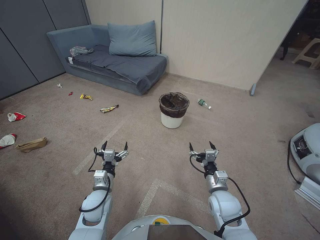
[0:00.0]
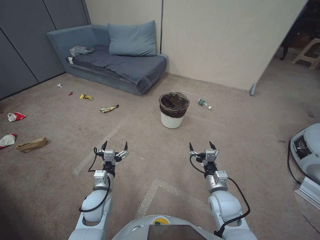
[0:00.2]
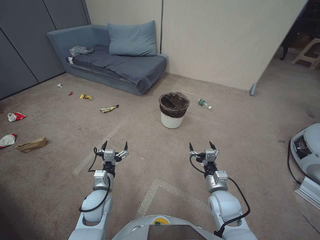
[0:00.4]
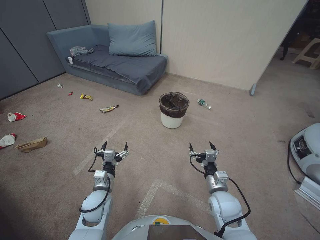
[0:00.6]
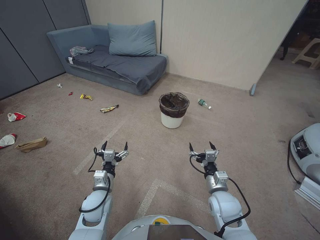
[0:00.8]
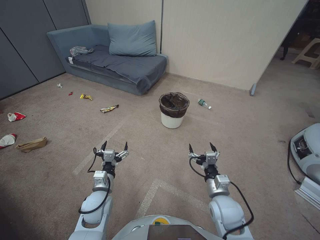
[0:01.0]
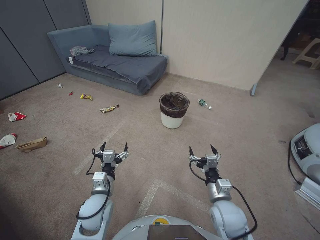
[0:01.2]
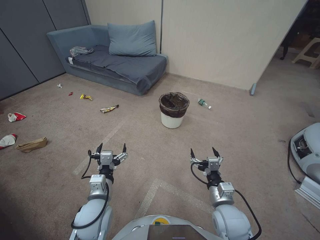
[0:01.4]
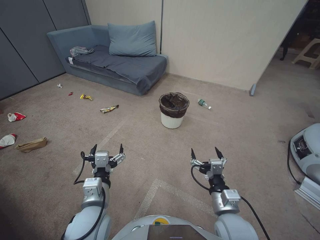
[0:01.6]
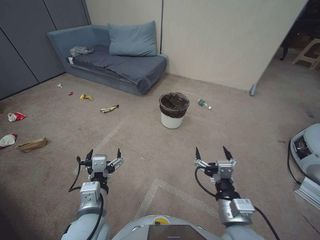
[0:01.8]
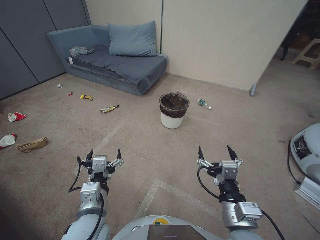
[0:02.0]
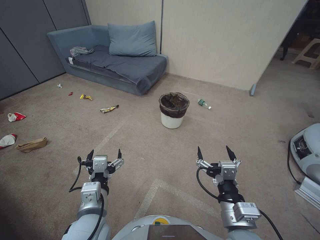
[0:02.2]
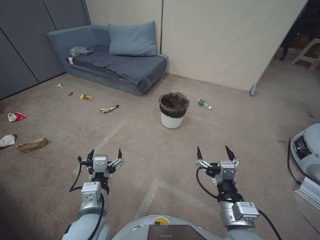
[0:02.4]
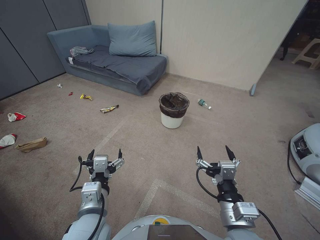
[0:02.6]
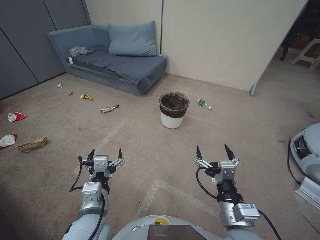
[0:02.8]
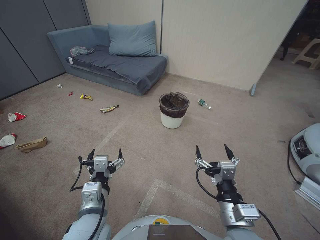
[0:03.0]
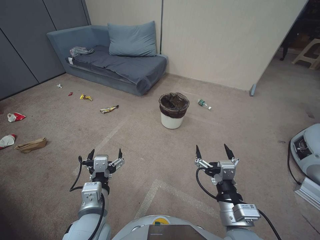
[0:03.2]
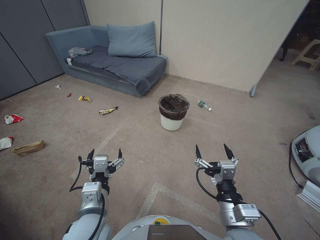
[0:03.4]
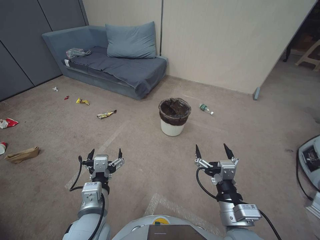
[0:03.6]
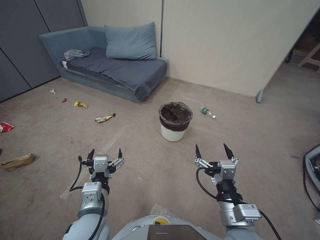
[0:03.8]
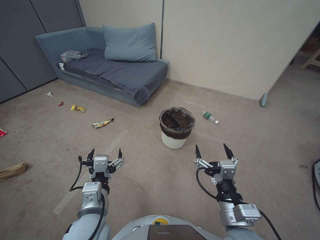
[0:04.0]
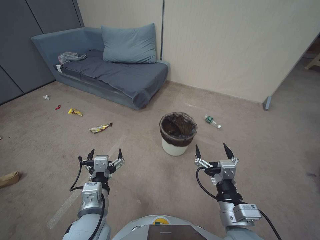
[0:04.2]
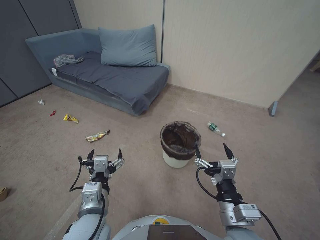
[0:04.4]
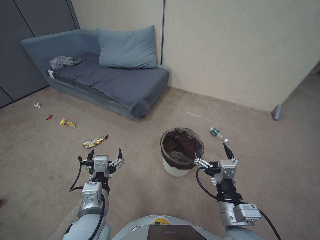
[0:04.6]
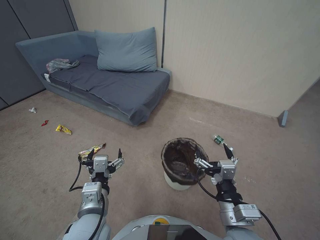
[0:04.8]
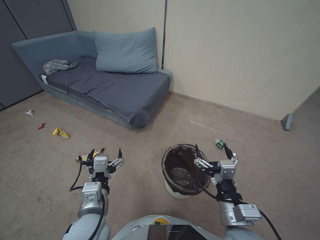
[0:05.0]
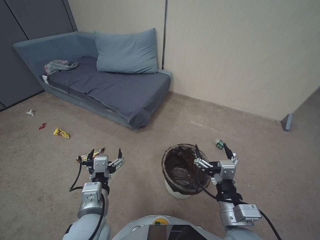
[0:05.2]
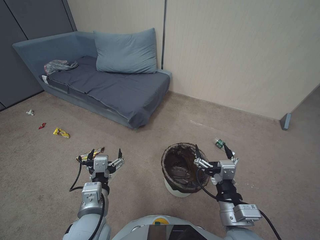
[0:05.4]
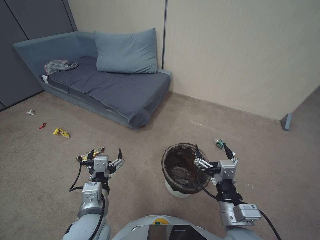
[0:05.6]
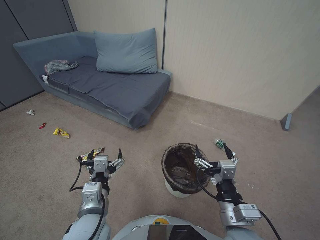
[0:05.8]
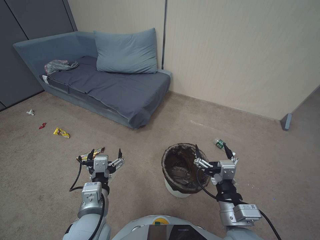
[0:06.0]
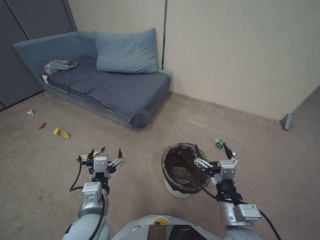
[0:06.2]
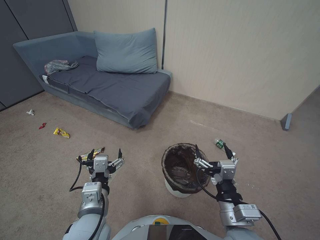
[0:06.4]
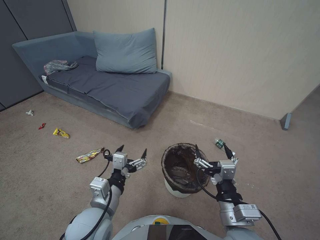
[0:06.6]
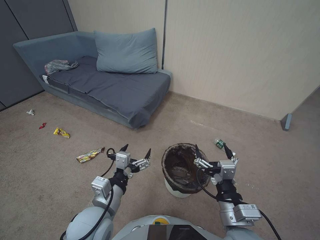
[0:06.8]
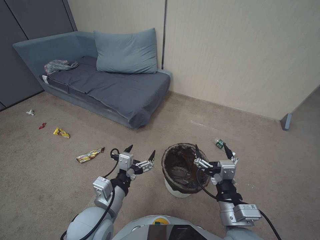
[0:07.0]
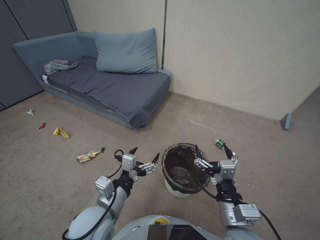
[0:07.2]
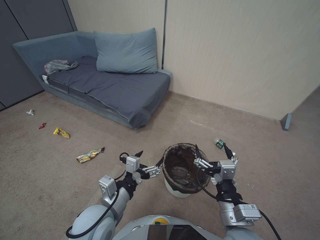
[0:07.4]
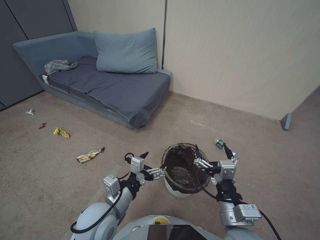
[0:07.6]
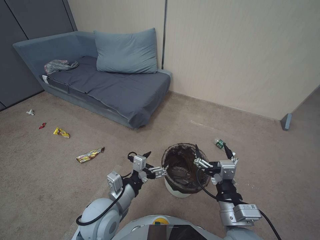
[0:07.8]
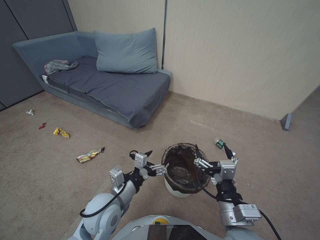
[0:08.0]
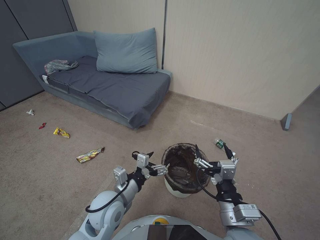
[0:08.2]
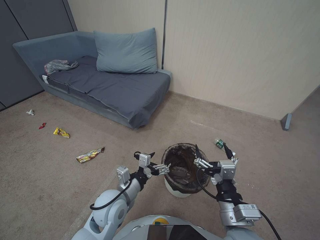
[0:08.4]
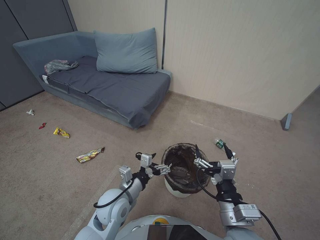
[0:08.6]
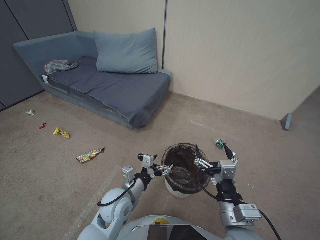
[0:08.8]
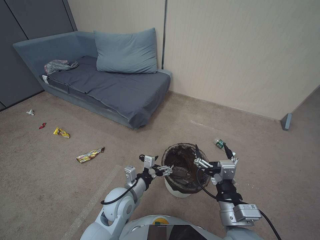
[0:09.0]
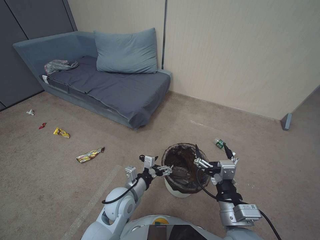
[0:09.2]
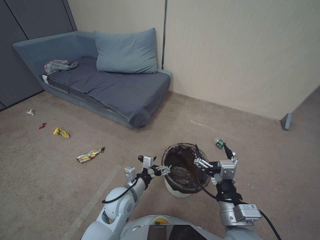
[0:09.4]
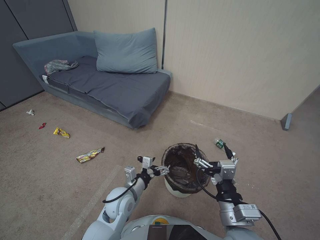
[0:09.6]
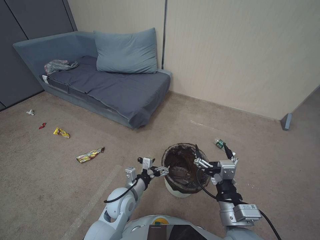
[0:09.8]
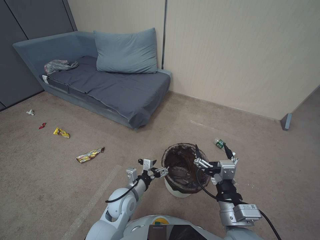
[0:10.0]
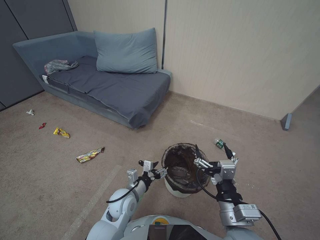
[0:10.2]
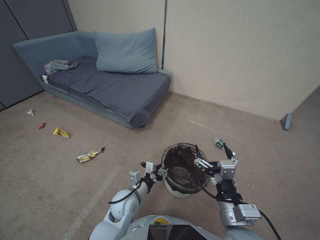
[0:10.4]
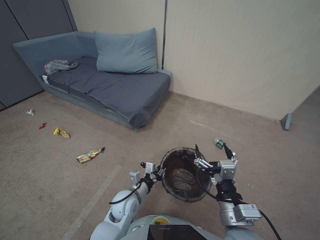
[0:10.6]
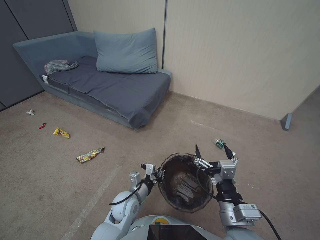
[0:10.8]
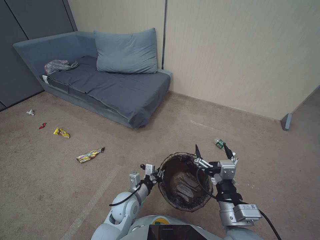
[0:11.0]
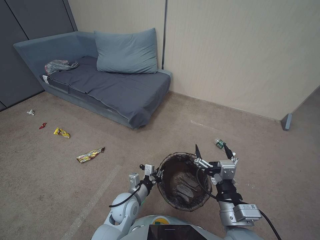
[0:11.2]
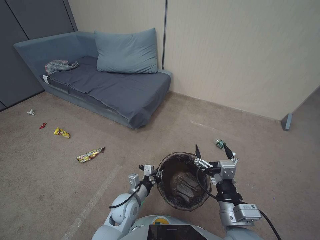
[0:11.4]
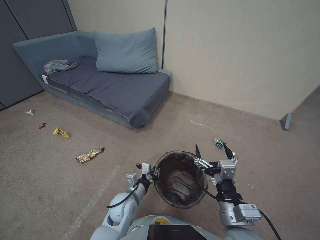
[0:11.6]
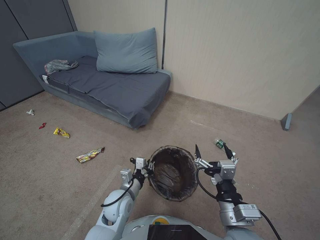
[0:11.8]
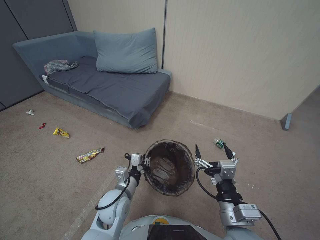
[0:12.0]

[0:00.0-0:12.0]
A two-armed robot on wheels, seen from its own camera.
Task of the whole recording: Pick up the trash bin, then pick up the garbage from the floor and place it into the trash bin.
0:01.6 to 0:03.0: The right gripper moves upward and backward, roughly 10 cm. Meanwhile the left gripper moves approximately 5 cm.
0:04.4 to 0:06.0: Neither gripper changes place.
0:07.6 to 0:09.0: The left gripper shifts about 10 cm downward and forward.
0:09.0 to 0:10.4: The left gripper shifts some 5 cm downward, and closes up.
0:10.4 to 0:12.0: The left gripper closes.

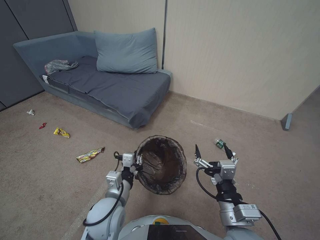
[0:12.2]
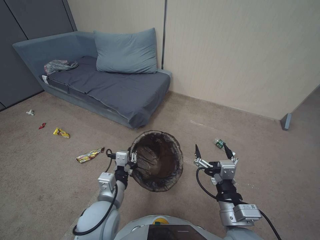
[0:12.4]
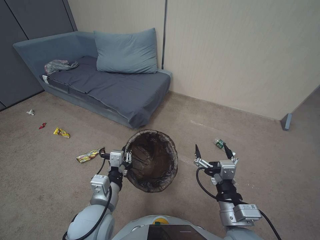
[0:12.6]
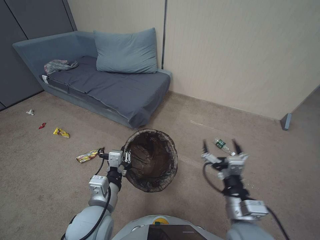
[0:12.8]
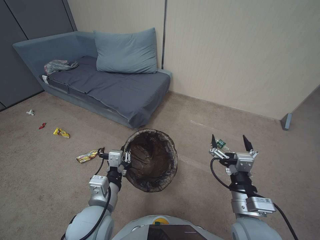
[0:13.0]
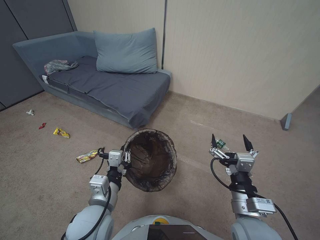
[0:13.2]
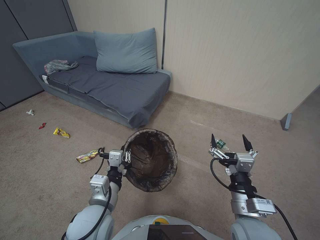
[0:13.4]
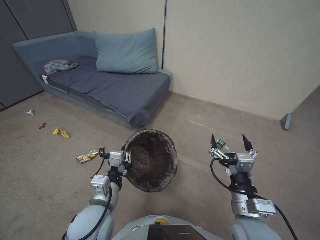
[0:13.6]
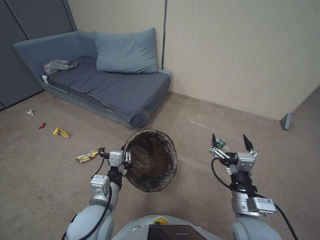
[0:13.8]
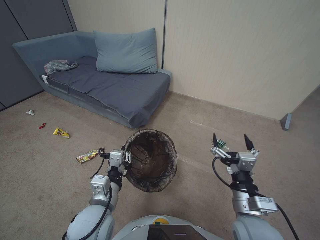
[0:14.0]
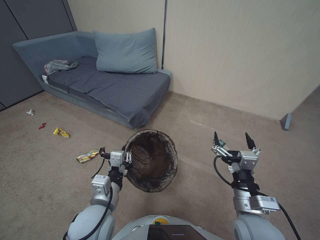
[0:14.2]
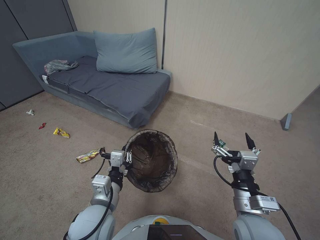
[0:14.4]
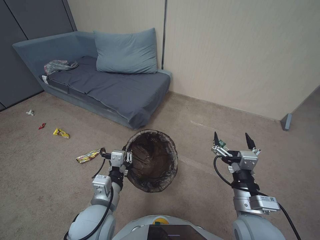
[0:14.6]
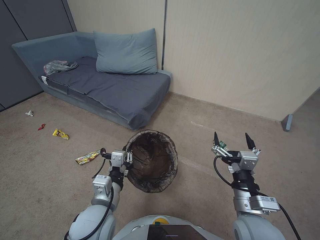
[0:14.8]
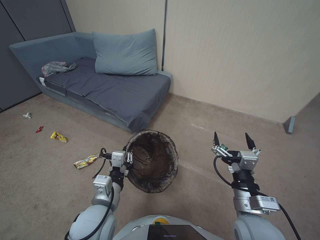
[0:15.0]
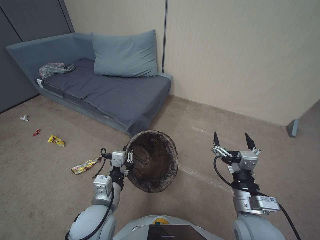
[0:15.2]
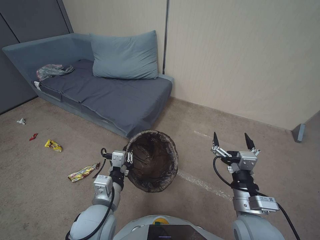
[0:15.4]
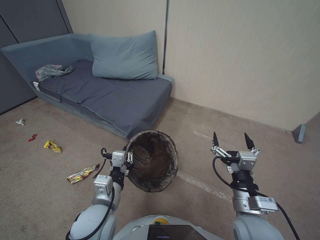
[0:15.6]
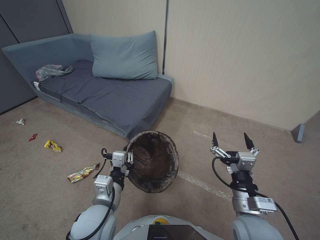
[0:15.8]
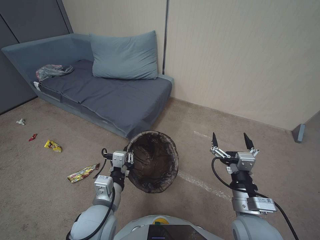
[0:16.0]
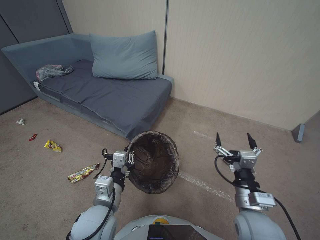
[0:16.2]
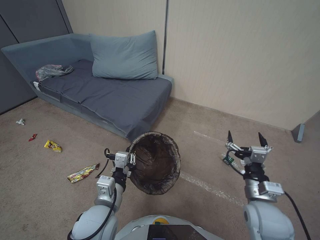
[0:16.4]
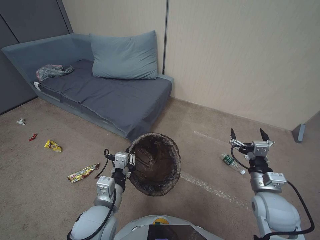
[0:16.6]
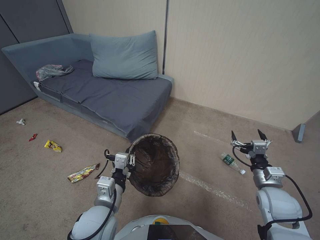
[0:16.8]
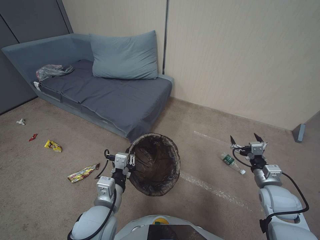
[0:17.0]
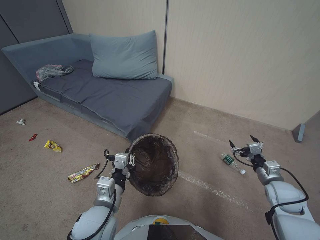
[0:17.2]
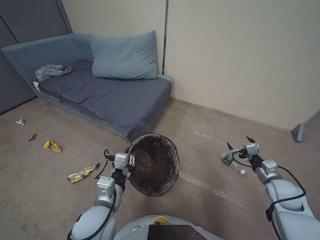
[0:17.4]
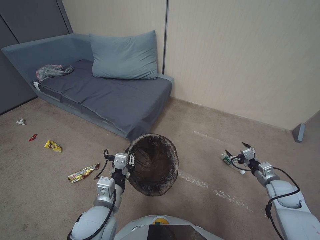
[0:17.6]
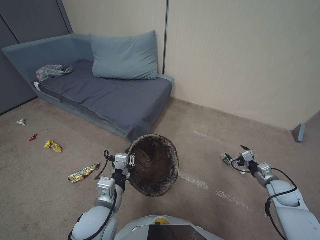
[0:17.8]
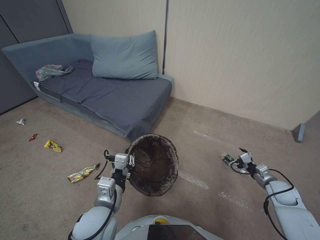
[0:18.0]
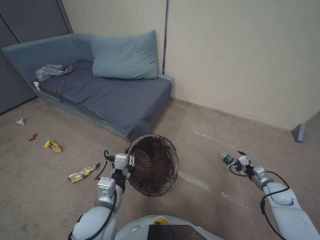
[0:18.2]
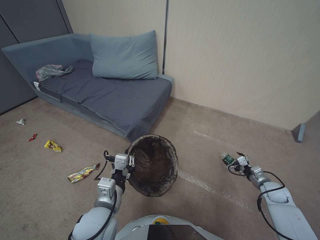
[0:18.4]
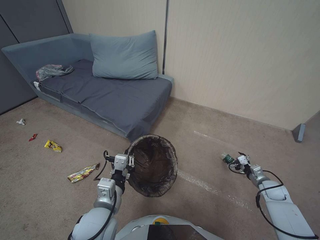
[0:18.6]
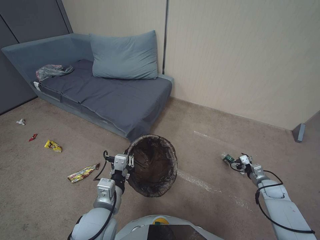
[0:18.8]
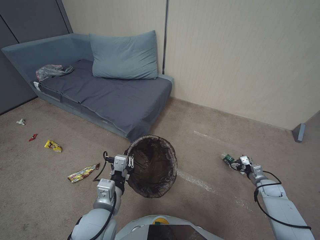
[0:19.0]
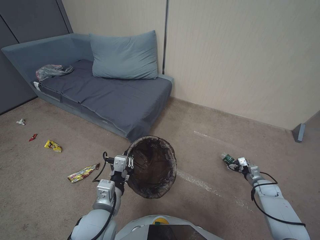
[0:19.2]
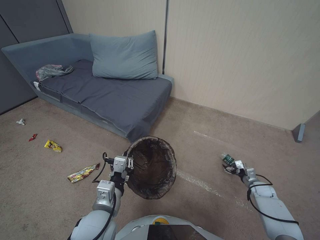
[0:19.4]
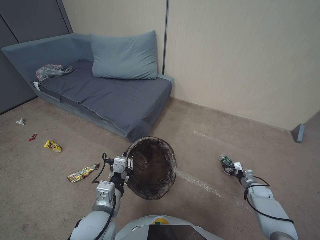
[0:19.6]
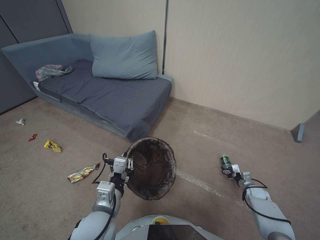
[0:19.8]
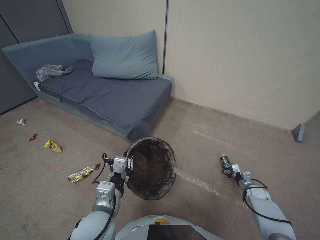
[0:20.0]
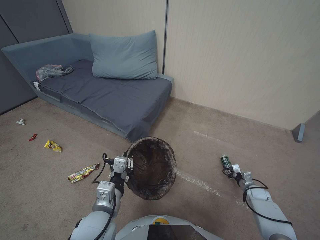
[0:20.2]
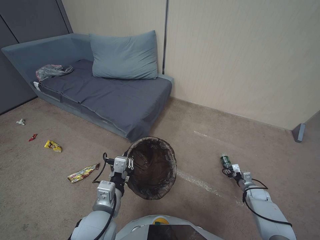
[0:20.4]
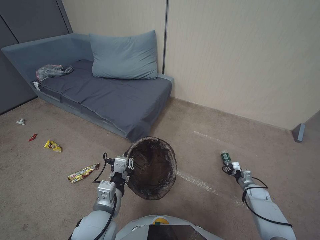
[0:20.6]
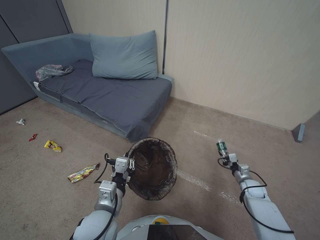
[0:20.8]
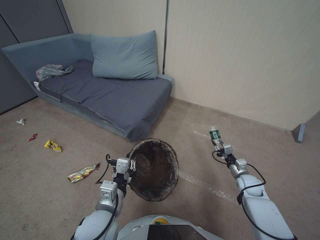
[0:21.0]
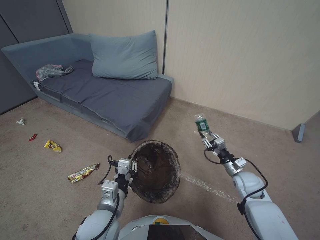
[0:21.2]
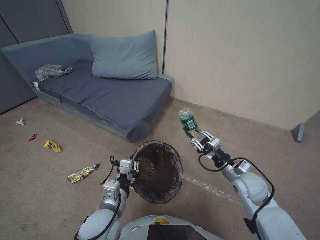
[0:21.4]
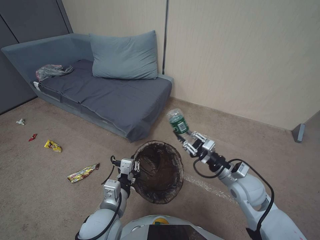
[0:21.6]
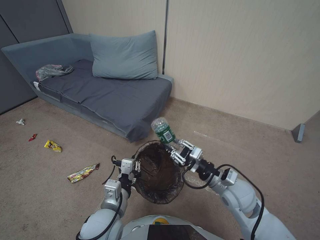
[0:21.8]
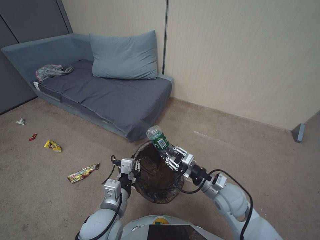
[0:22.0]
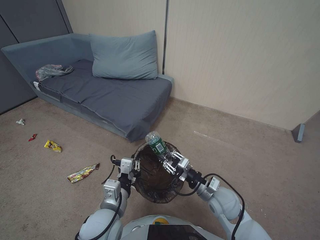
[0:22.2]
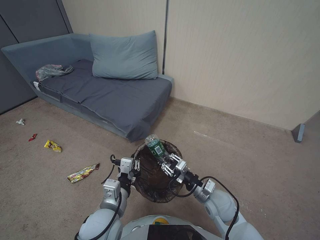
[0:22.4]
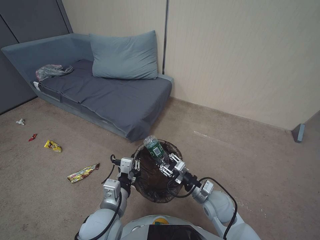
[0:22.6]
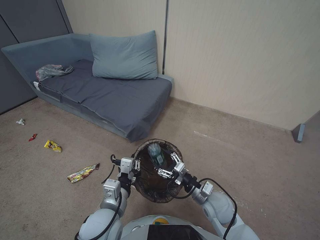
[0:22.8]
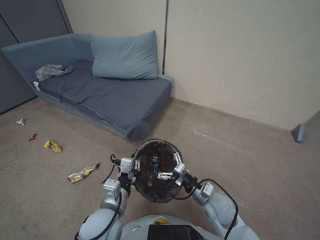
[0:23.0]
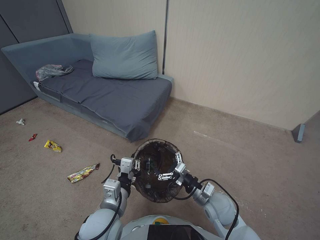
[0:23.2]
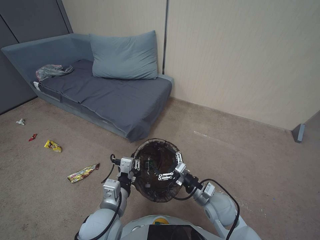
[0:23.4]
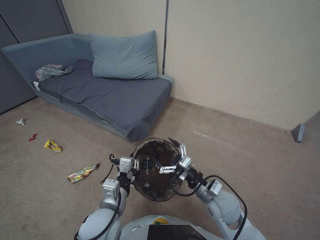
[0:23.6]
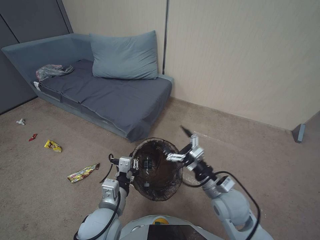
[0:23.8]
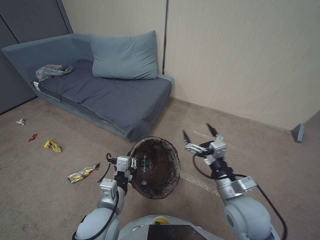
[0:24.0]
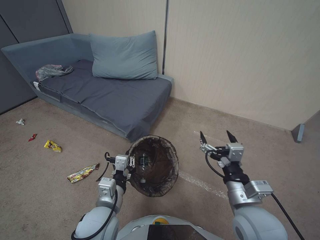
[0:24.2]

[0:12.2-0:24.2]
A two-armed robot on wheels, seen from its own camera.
Task of the whole recording: Pick up the trash bin, then pick up the garbage from the floor and place it into the trash bin.
0:12.2 to 0:13.8: The left gripper goes approximately 5 cm upward.
0:13.8 to 0:15.2: Both grippers stay about where they are.
0:15.2 to 0:16.6: The right gripper is displaced to the right and forward by approximately 10 cm.
0:16.6 to 0:18.2: The right gripper goes some 25 cm to the right, downward and forward.
0:18.2 to 0:19.8: The right gripper moves downward, some 15 cm.
0:19.8 to 0:21.2: The right gripper travels upward and to the left by approximately 20 cm, and closes.
0:21.2 to 0:22.6: The right gripper goes approximately 20 cm to the left and backward.
0:22.6 to 0:24.2: The right gripper moves upward and backward, approximately 15 cm, and opens up.
